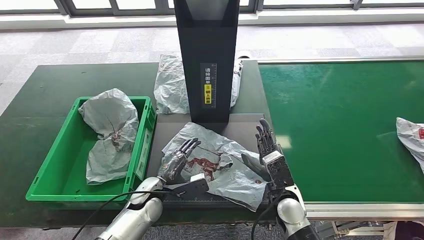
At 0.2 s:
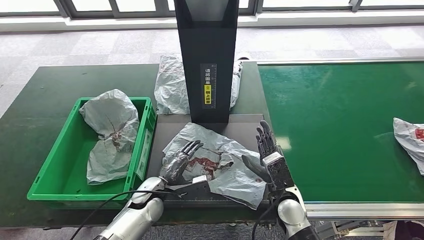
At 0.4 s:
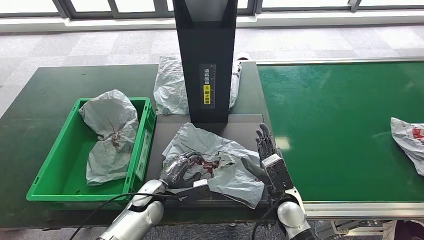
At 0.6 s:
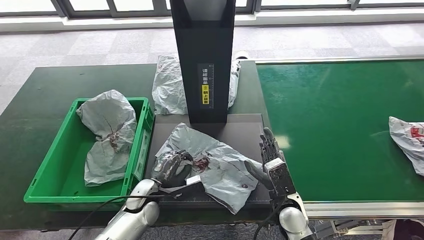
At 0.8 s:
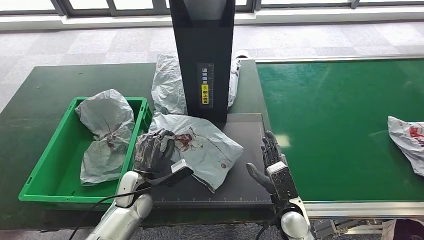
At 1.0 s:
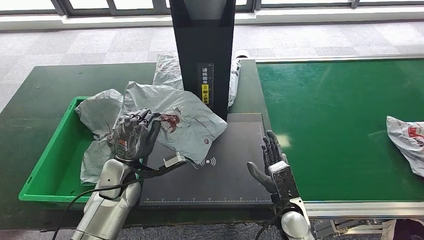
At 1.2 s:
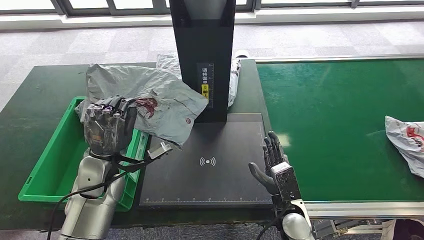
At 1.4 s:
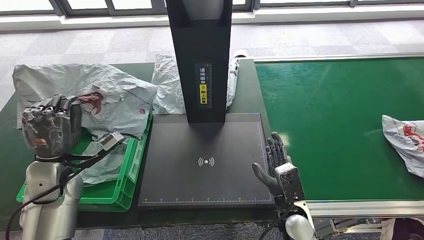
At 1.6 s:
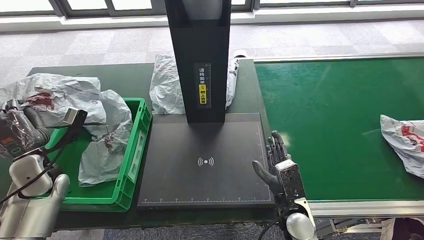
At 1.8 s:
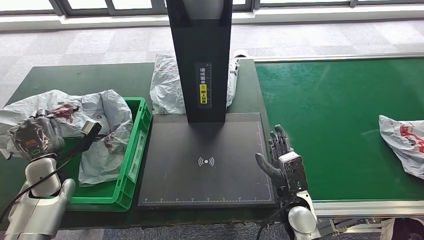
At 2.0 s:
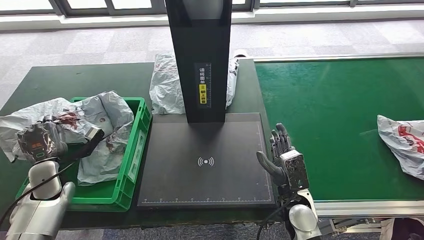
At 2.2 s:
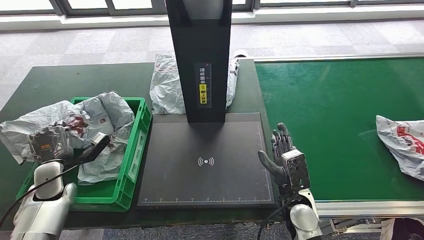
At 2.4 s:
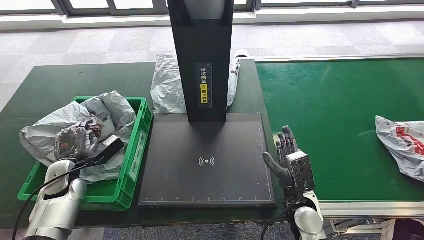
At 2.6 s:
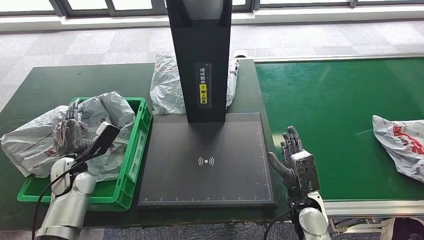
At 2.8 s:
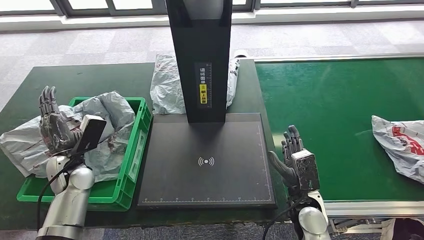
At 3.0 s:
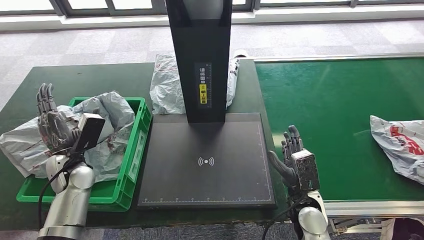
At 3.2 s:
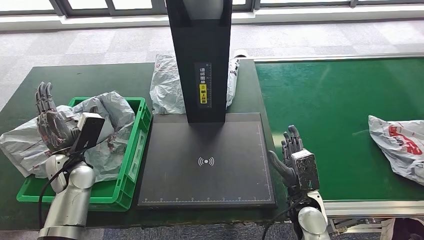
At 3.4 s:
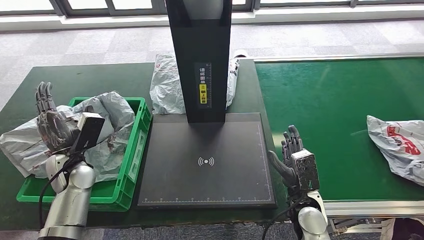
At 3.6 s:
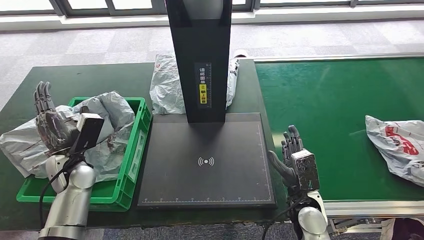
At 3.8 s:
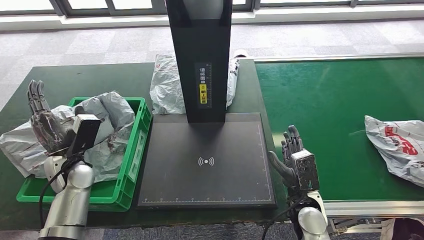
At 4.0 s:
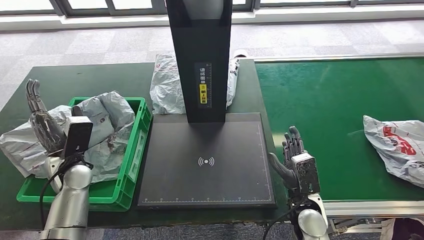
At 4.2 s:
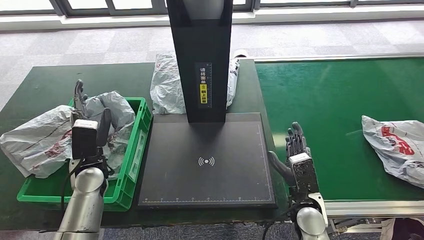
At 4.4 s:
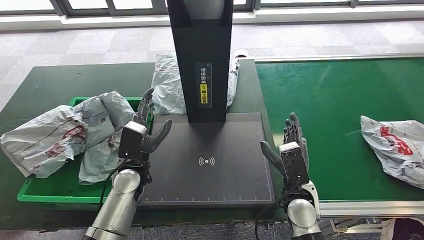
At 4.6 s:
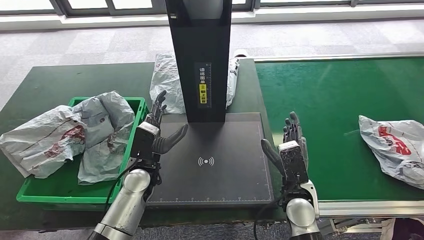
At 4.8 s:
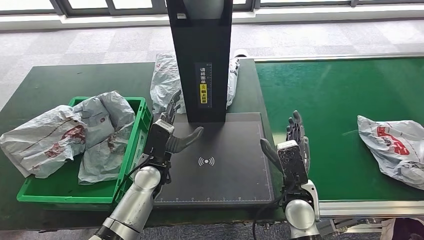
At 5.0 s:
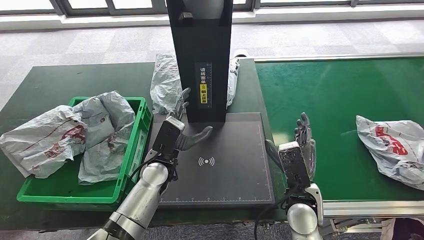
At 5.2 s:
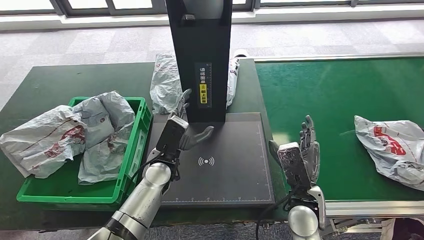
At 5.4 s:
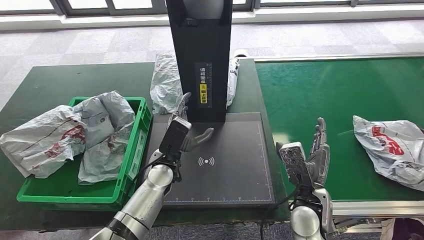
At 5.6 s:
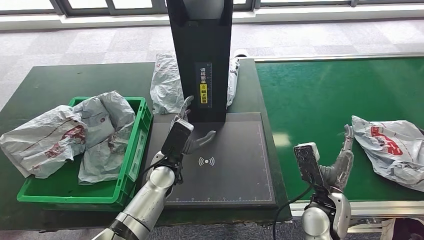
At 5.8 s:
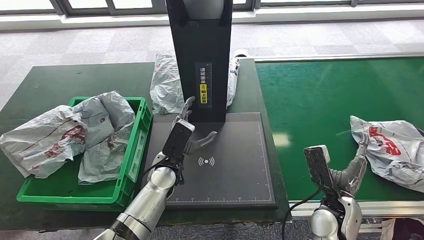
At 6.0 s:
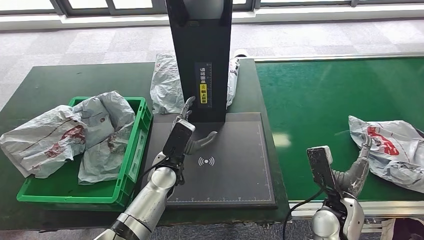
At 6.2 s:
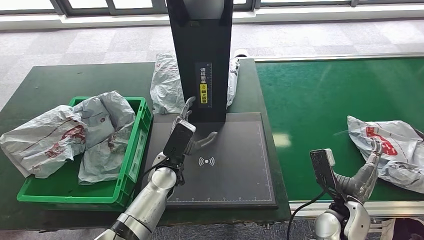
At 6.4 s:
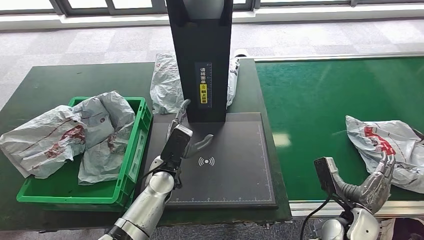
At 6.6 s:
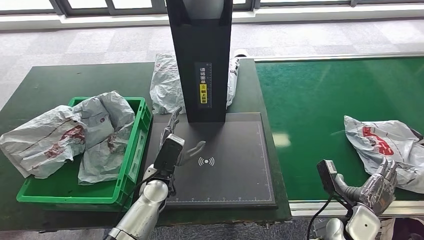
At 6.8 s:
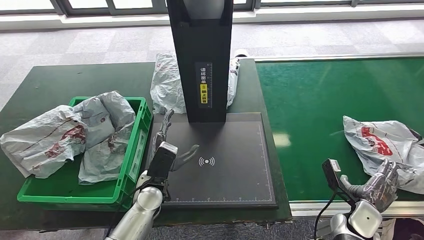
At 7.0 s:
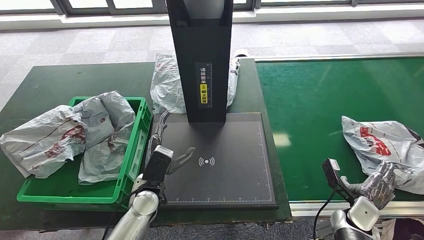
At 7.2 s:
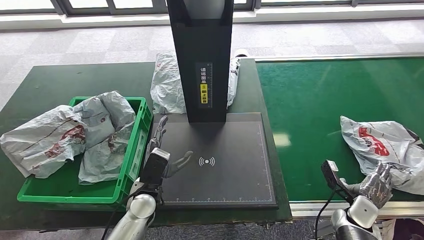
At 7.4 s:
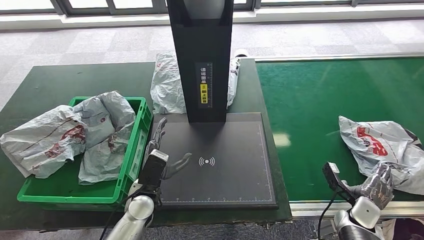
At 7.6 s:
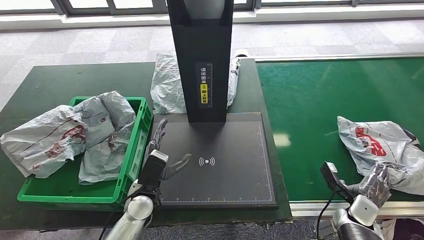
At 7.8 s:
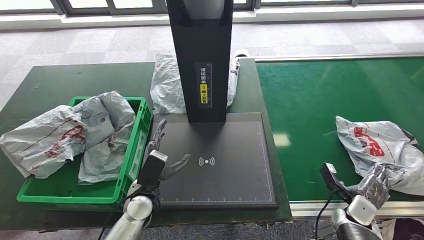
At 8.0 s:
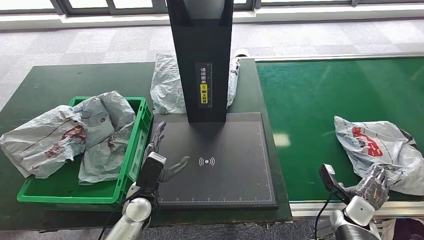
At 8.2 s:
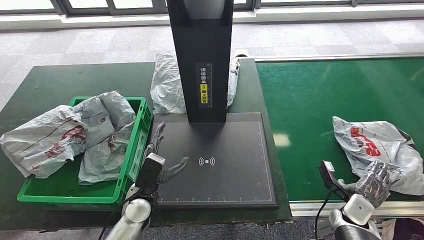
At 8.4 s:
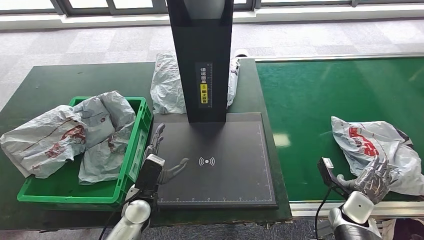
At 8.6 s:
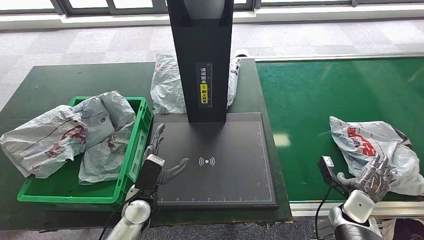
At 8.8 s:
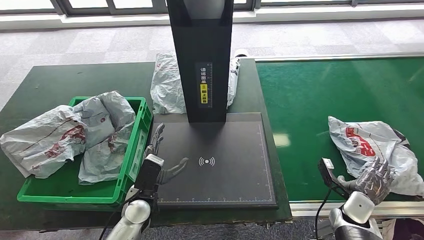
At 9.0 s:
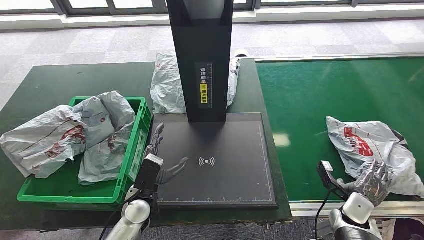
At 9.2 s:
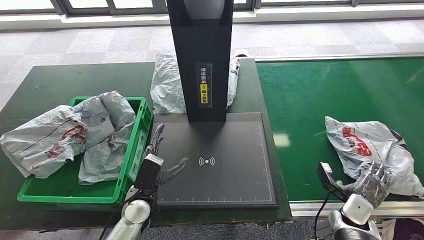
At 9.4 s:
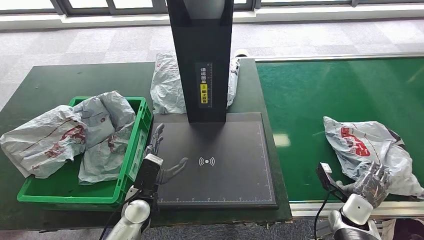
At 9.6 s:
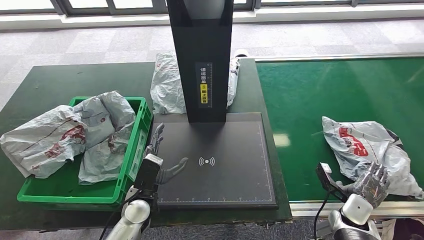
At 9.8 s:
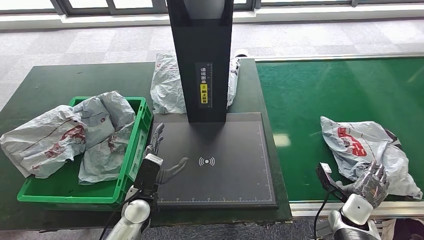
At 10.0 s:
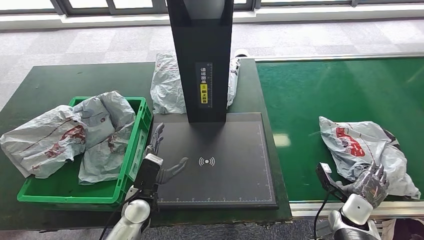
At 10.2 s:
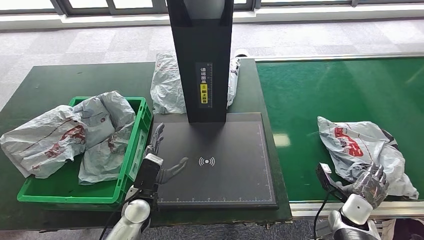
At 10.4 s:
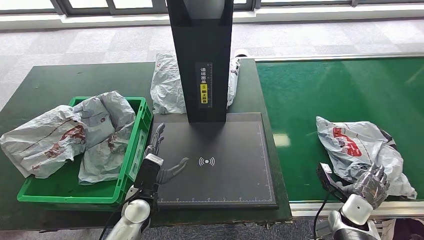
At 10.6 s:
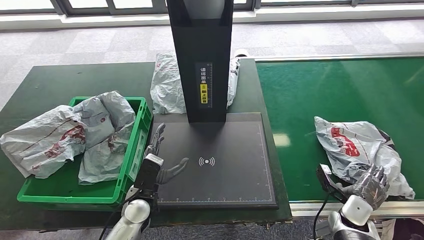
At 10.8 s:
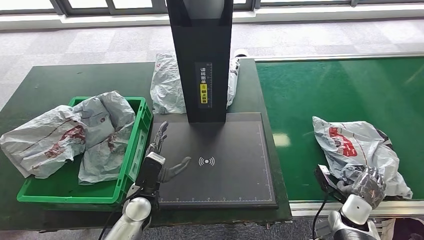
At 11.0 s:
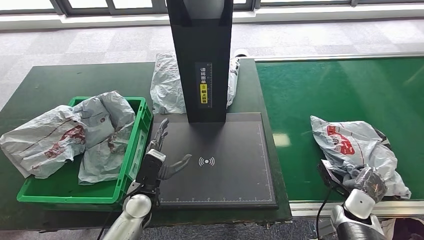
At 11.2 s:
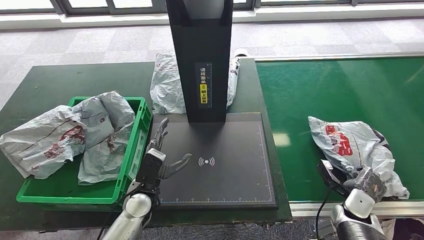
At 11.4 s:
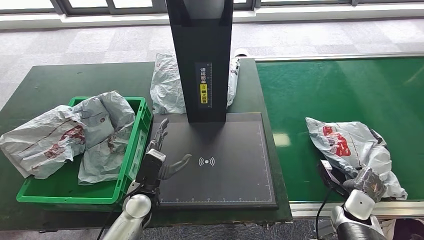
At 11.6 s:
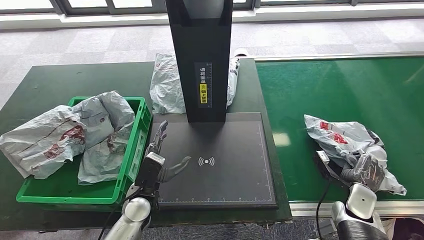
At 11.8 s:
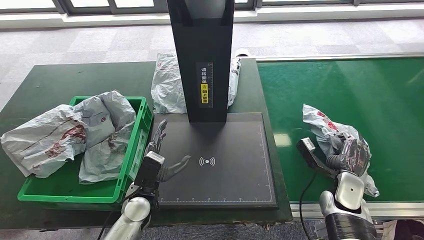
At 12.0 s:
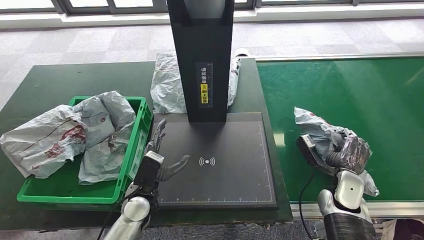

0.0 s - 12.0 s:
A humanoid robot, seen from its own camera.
Step, 0.0 s - 1.8 s: Pick up the parcel from the inbound machine.
Step, 2.0 s - 4.4 s: Place the parcel into the delivery box.
3.0 s - 4.4 s: The left hand travels to the right by about 15 cm.
4.4 s - 6.0 s: The two hands go roughly 10 cm to the right.
6.0 s - 7.6 s: The right hand moves to the right and downward, some 15 cm. The left hand is displaced to the left and backward by some 10 cm.
7.6 s - 9.0 s: The hands make only small movements.
9.0 s - 10.4 s: Both hands stay about where they are.
10.4 s - 12.0 s: The right hand goes about 5 cm upward.

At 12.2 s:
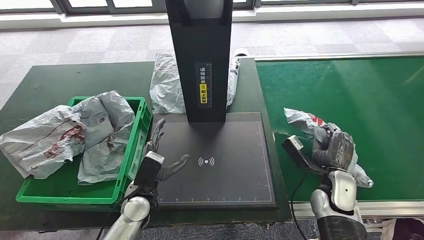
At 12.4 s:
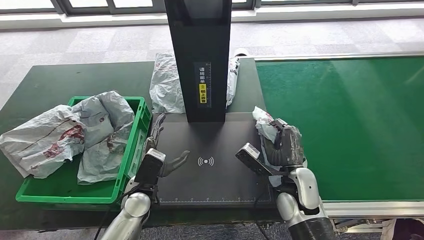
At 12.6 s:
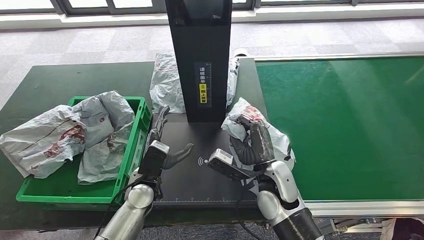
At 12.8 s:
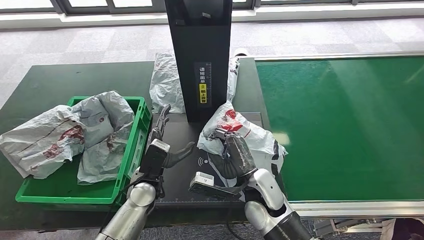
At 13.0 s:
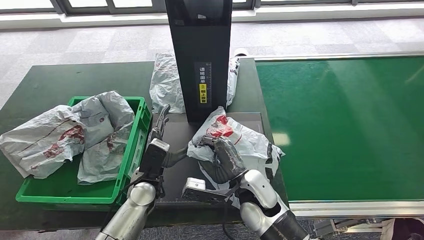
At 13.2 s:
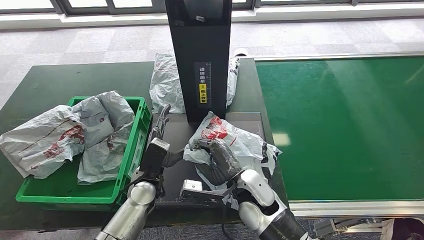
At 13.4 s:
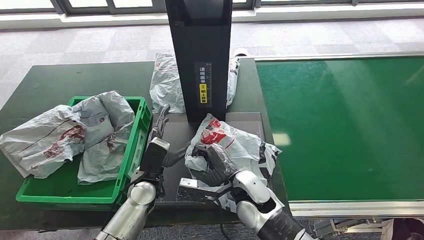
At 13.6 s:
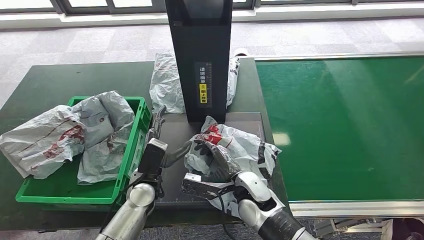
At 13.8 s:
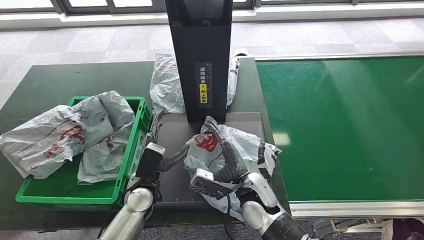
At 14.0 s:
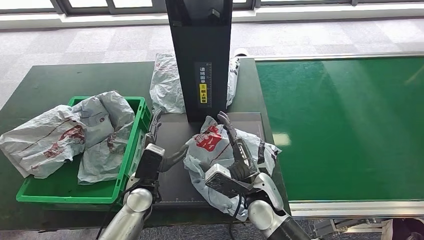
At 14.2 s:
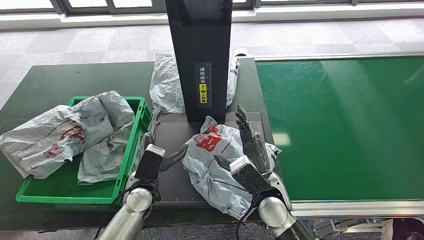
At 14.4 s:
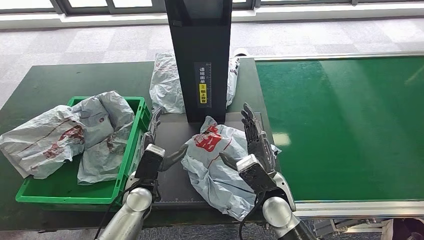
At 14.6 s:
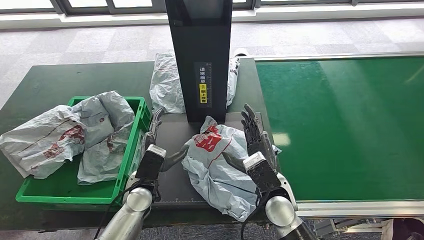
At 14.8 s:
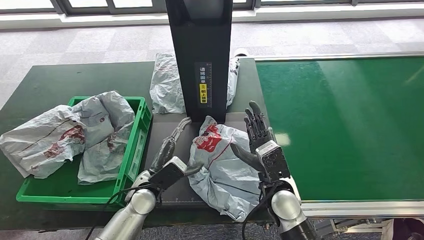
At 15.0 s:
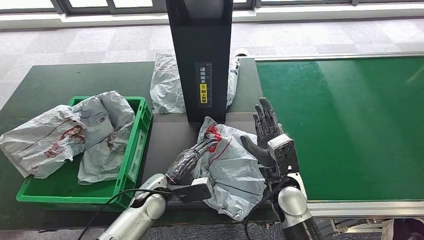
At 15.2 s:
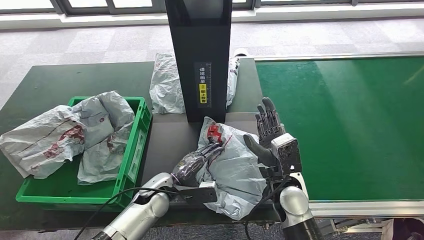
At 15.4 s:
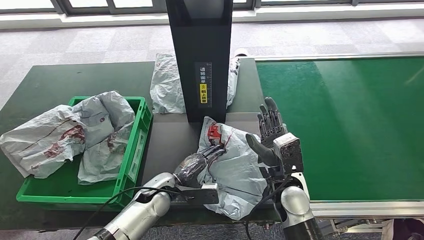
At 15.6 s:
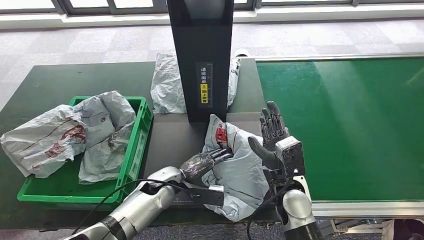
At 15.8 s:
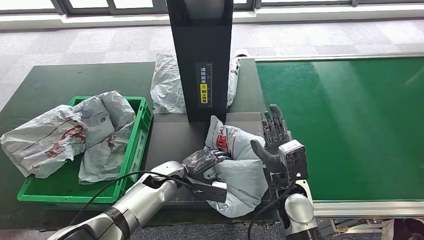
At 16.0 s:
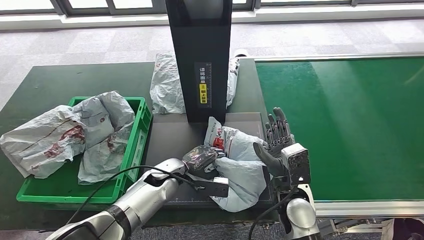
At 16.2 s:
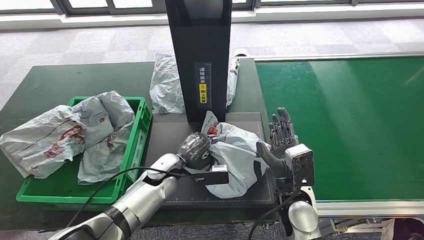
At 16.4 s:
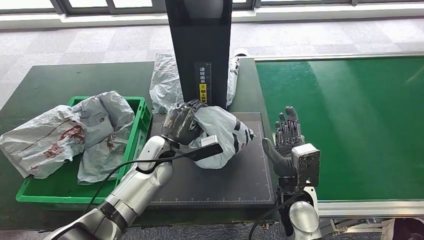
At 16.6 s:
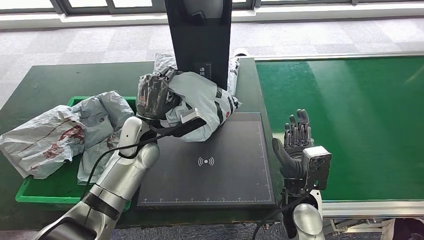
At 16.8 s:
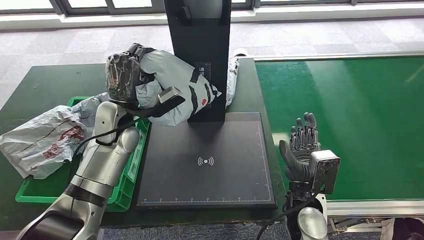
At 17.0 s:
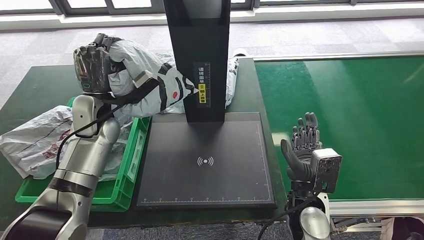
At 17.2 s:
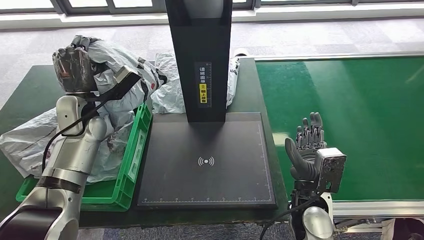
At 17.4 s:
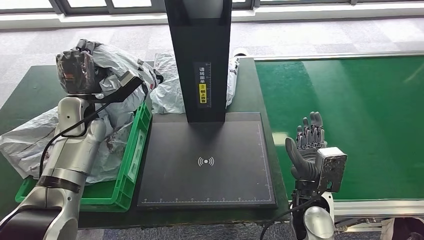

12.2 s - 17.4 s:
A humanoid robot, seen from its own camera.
Step, 12.4 s - 14.6 s: Place the parcel onto the inbound machine.
Step, 15.0 s - 16.6 s: Pick up the parcel from the inbound machine.
12.2 s - 14.0 s: The right hand goes roughly 20 cm to the left.
14.0 s - 15.6 s: The right hand goes approximately 5 cm to the right, while the left hand shifts by roughly 5 cm.
